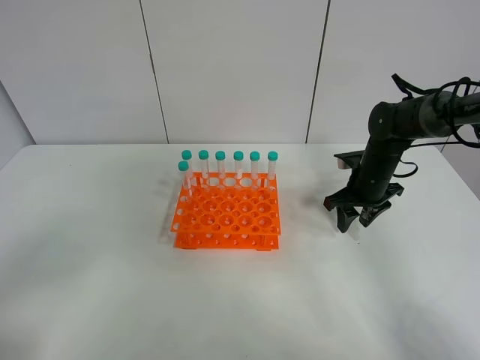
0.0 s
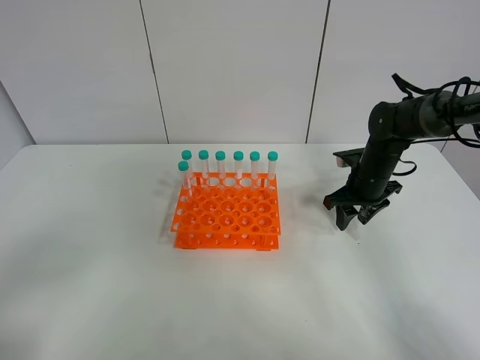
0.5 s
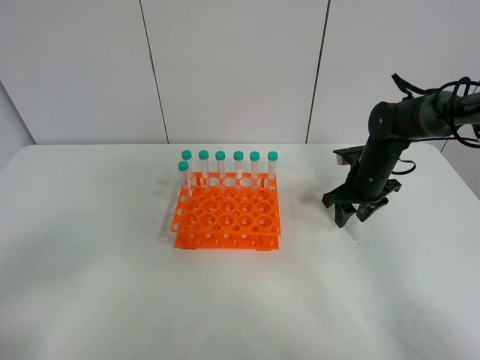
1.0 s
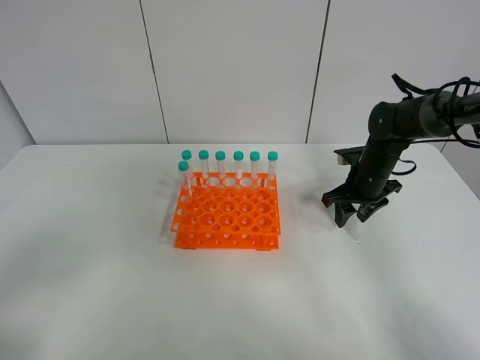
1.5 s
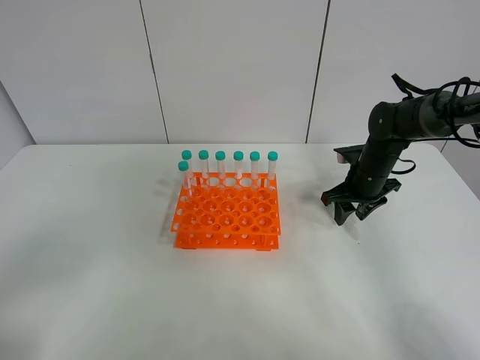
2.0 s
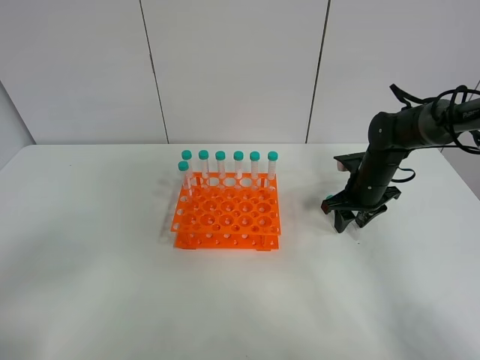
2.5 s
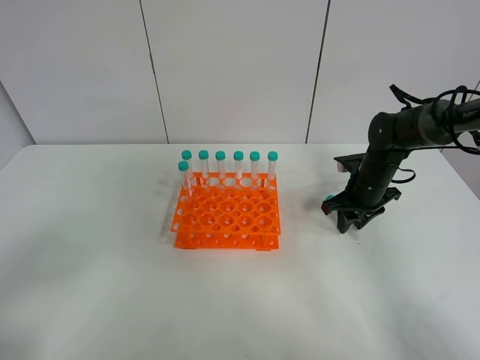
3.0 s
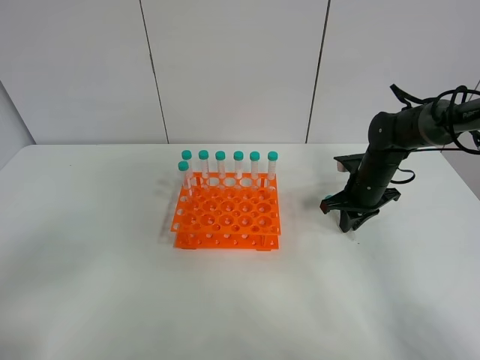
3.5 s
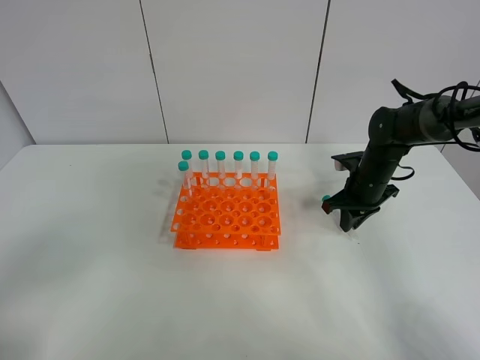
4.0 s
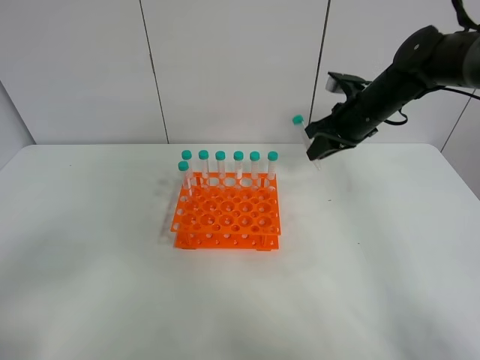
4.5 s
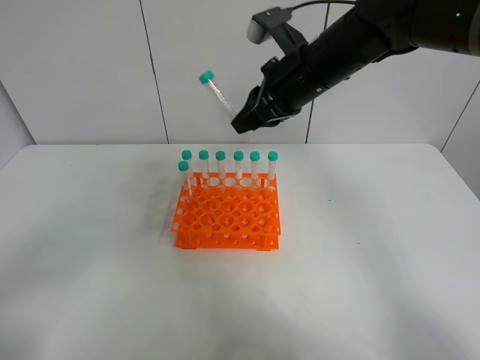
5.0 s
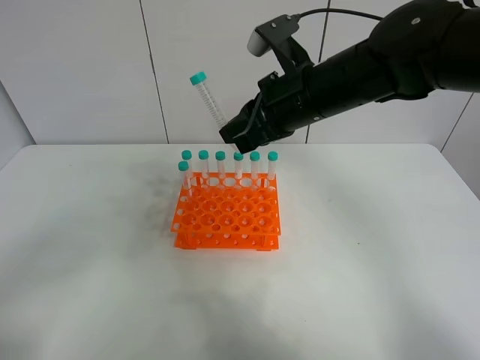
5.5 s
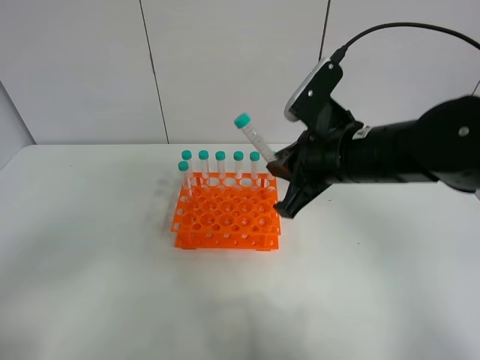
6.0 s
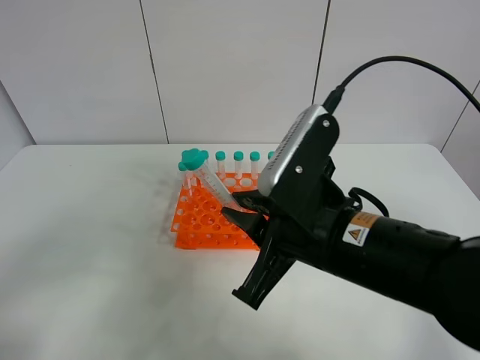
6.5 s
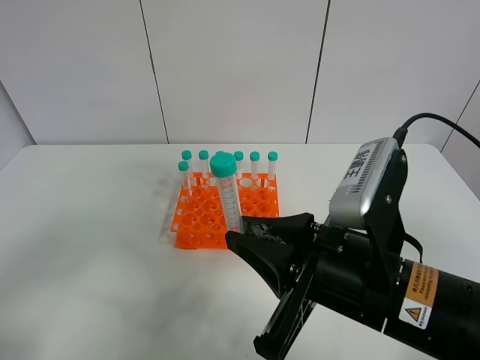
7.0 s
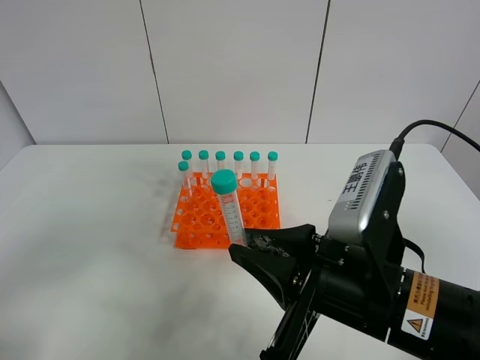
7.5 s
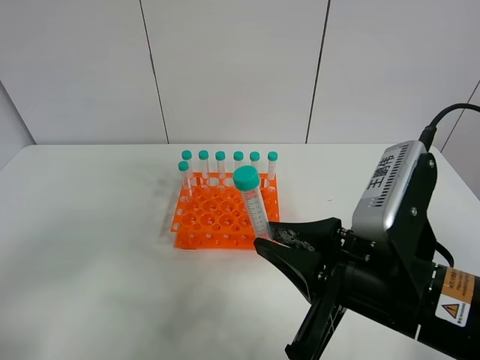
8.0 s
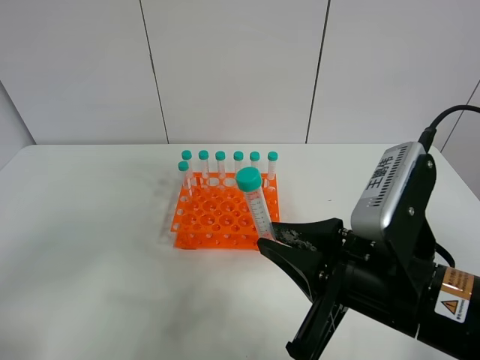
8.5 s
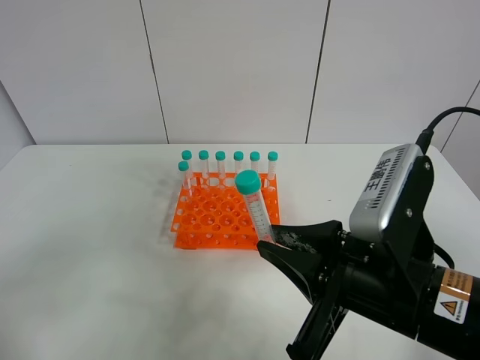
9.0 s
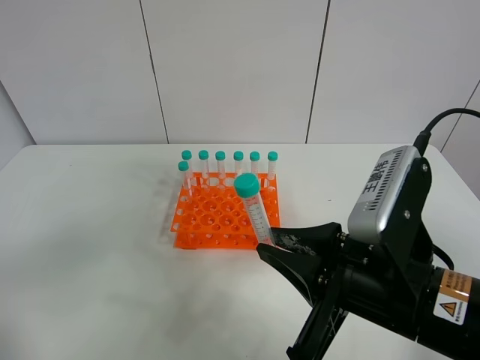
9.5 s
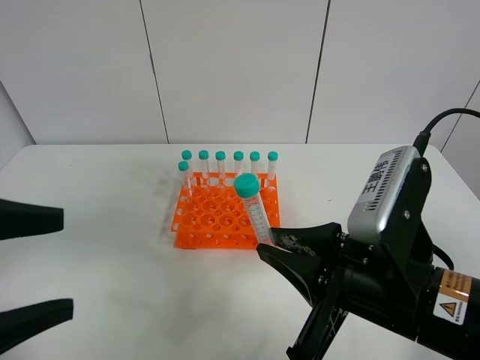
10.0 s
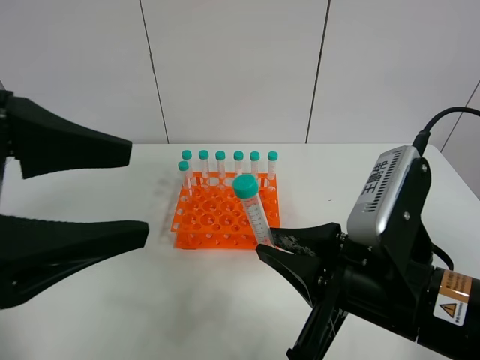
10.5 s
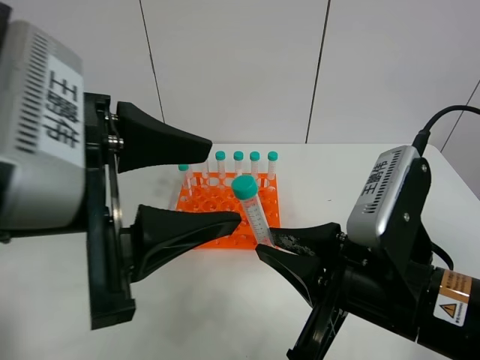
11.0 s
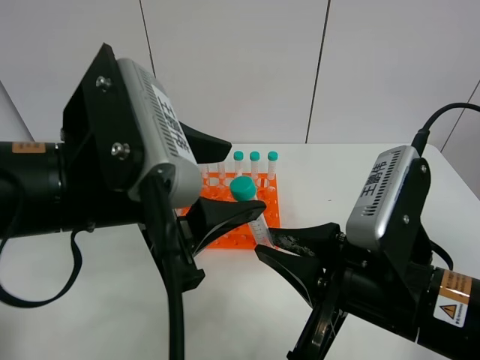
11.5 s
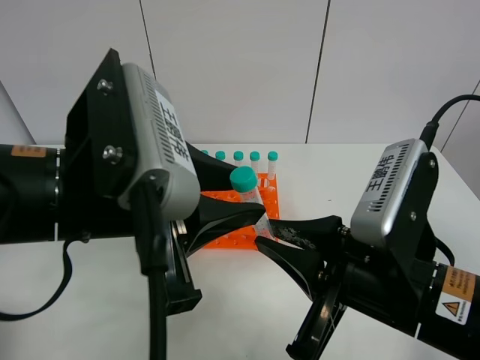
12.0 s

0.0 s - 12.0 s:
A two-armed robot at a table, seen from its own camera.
Task of the whole recording: Put the test tube on the table back onto the test tube rack.
Step, 0.0 s - 3.0 s: Pick up the test tube with the right gripper.
0.0 s - 2.0 s: Neither gripper changes place.
2.0 s - 4.0 s: The right gripper closes its fingers.
4.0 s - 6.0 s: The right gripper is displaced backward, upward and to the left by approximately 25 cm.
6.0 s - 8.0 s: The right gripper shifts approximately 15 cm backward.
8.0 s - 10.0 s: The left gripper shifts approximately 10 cm forward and to the right.
10.0 s - 12.0 s: The left gripper shifts roughly 15 cm to the right and forward, and closes.

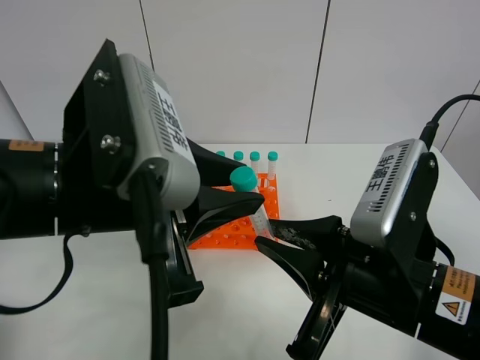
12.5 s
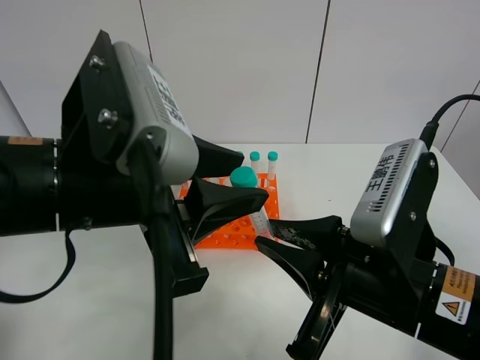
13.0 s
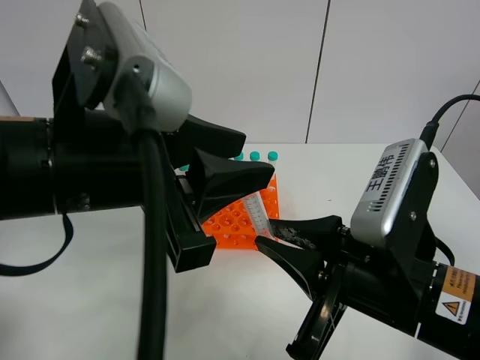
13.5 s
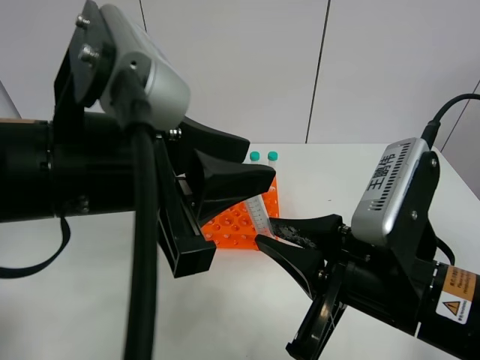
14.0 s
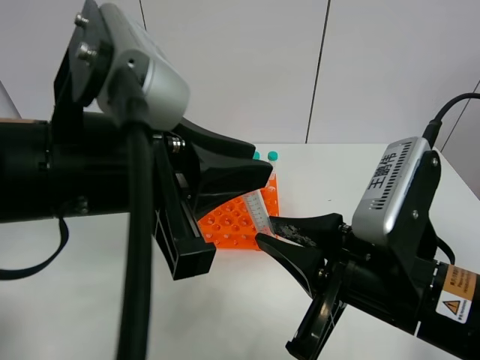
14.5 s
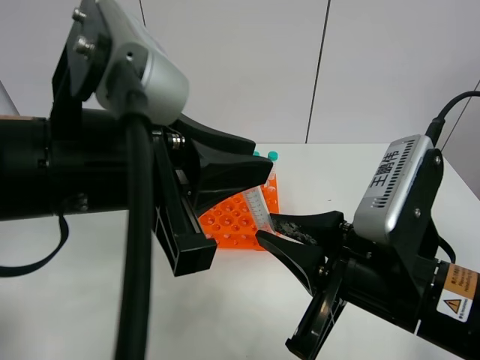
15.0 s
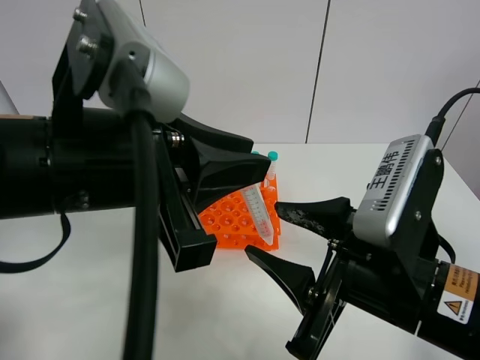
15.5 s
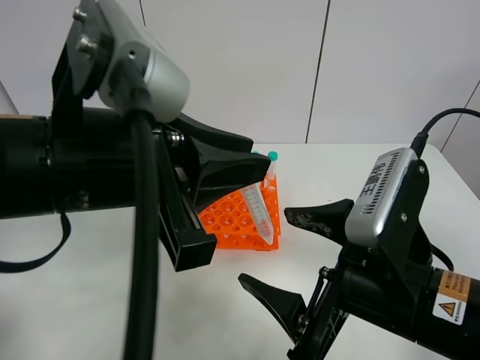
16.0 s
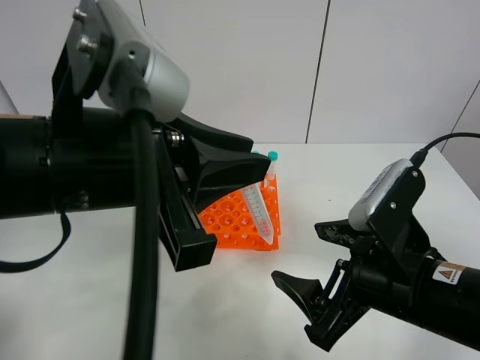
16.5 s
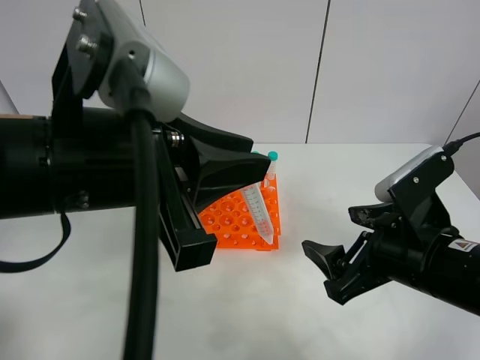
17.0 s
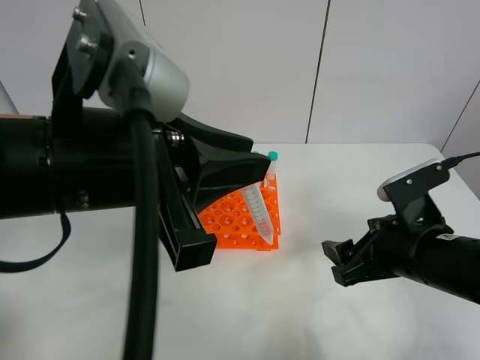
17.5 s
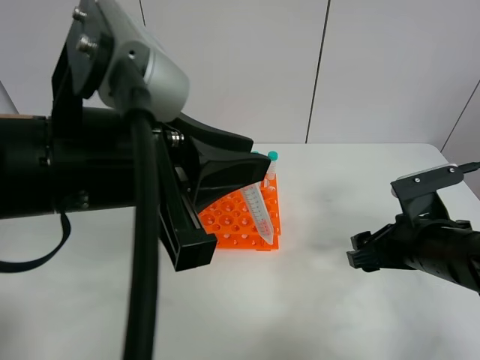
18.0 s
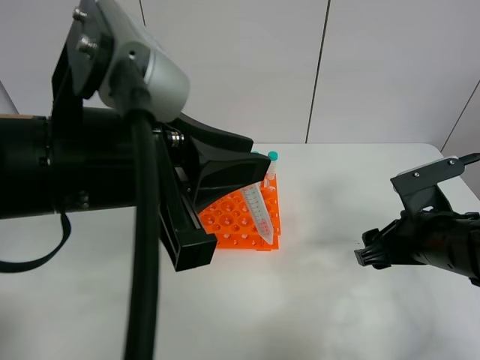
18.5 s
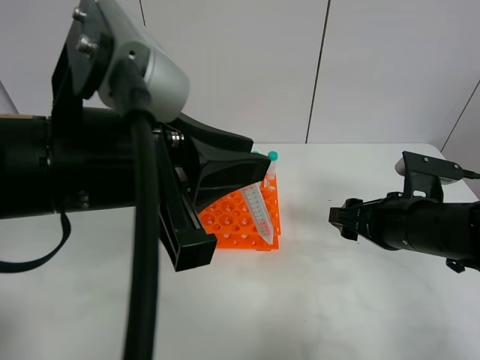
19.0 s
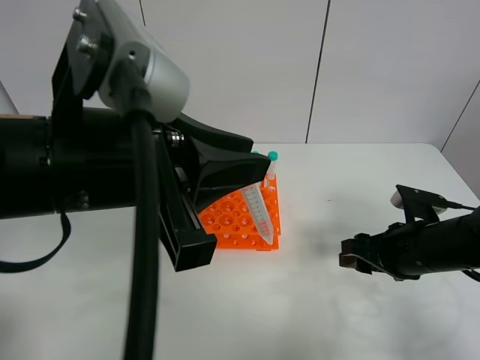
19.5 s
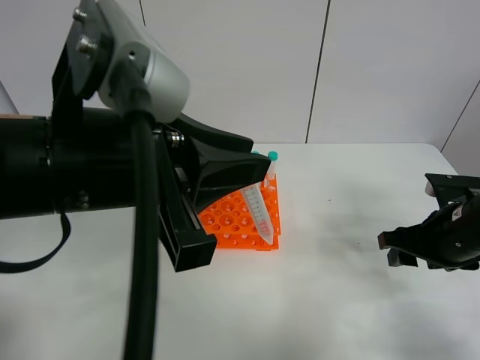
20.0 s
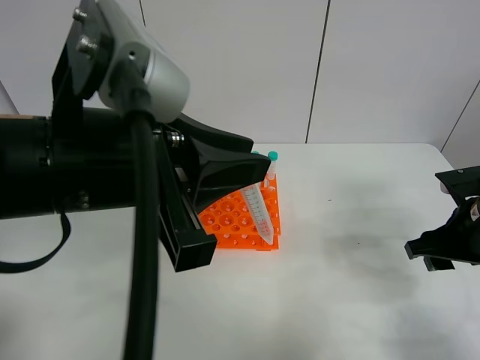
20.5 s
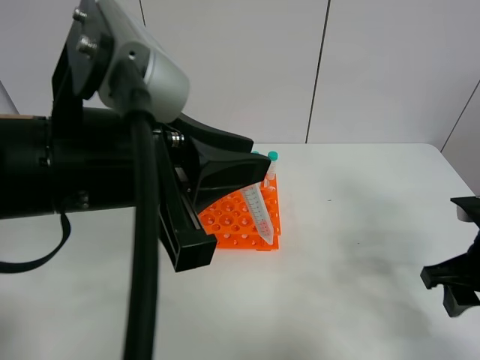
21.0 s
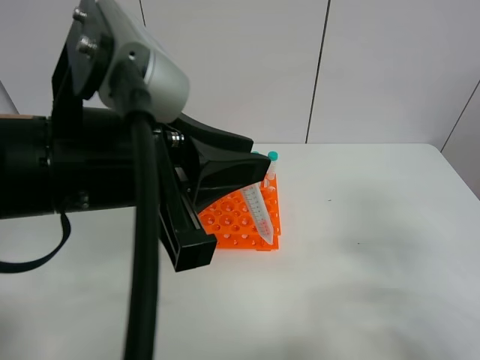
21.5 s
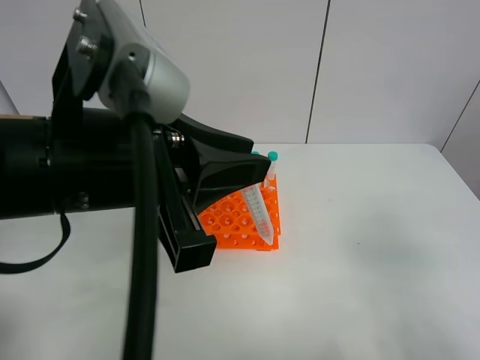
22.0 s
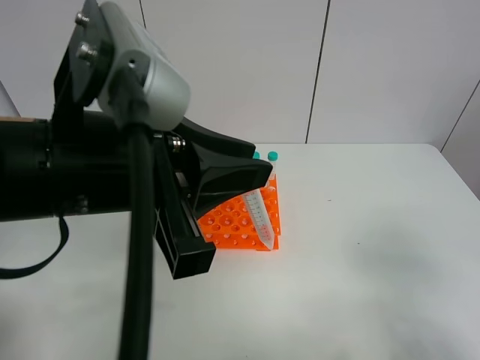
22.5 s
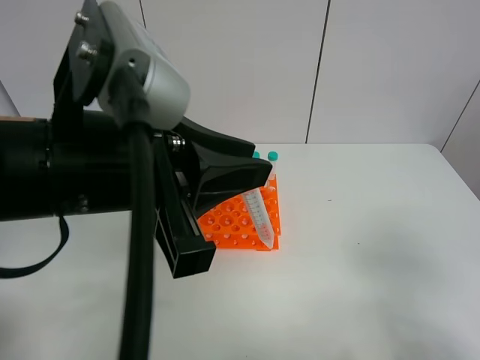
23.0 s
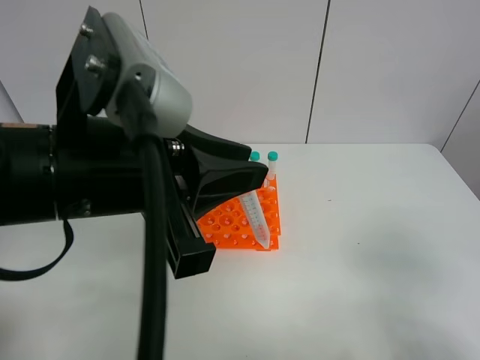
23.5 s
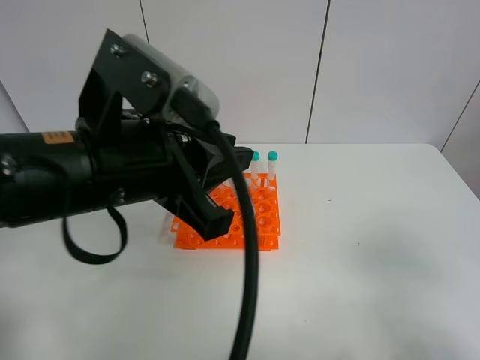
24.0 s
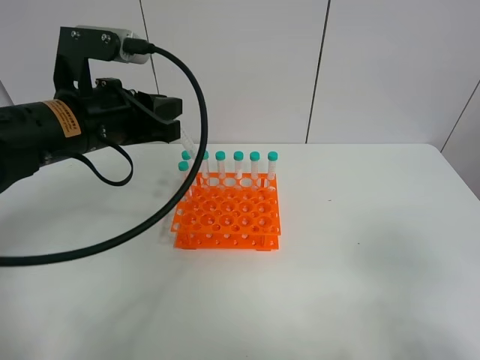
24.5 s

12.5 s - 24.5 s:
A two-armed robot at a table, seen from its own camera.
Task of the whole recording: Put the test tube on the table back onto the test tube rack.
Step, 12.5 s - 15.5 s: Move the test tube from the right gripper to the left gripper.
14.5 s - 16.5 s: The right gripper opens.
16.5 s - 18.5 s: The right gripper moves to the right and forward, some 10 cm.
18.5 s - 20.5 s: The right gripper goes about 5 cm to the right.
20.5 s - 22.5 s: The right gripper moves backward and upward, some 25 cm.
22.5 s - 24.5 s: The left gripper moves forward and to the left, approximately 15 cm.

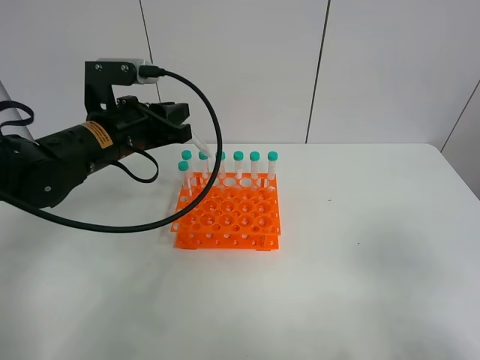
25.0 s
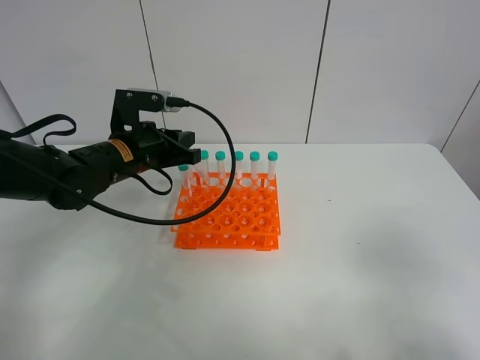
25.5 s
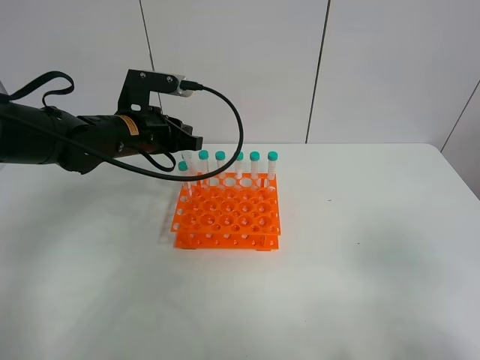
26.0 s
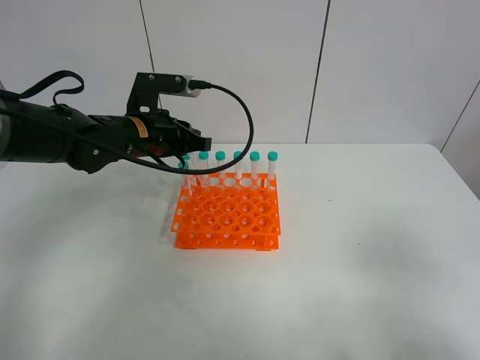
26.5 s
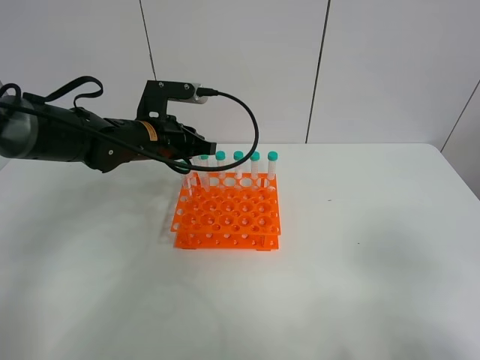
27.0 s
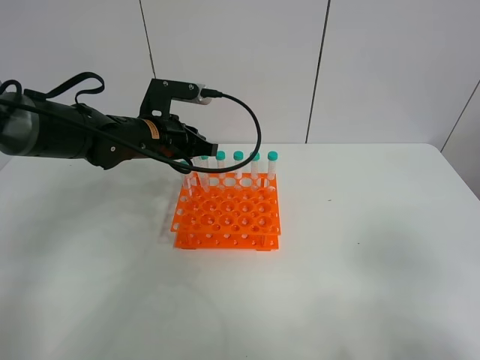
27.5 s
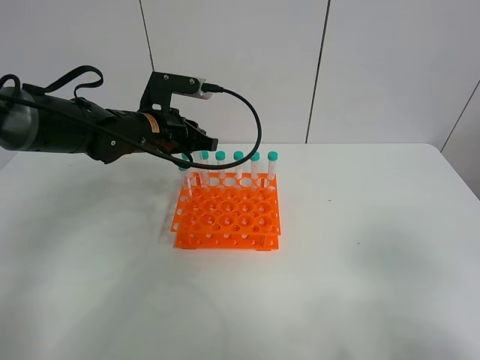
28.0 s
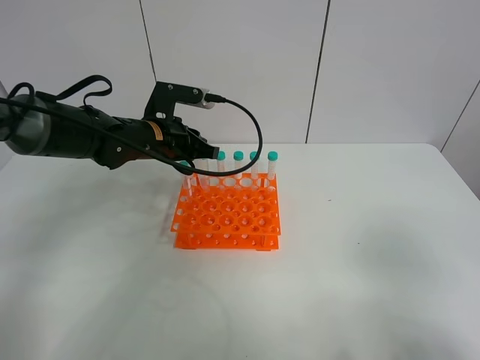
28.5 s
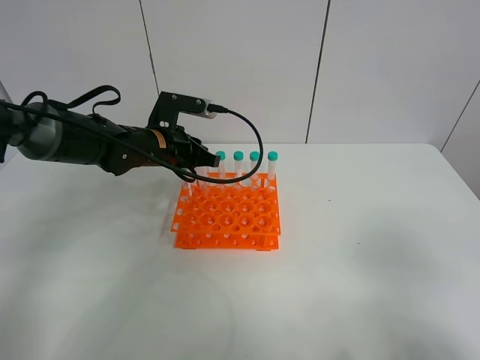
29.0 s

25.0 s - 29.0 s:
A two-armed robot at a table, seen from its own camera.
Task of the whole recording: Put the test tube on the table back onto the test tube rack.
25.0 s - 27.0 s: The left gripper shifts roughly 5 cm forward.
27.0 s - 29.0 s: The grippers move only a little.
